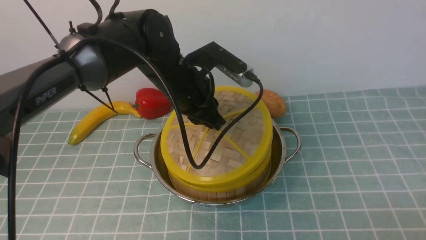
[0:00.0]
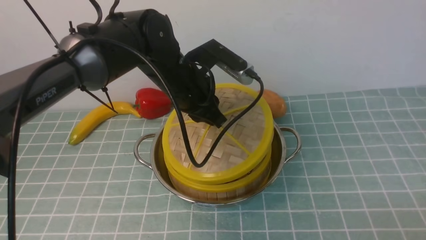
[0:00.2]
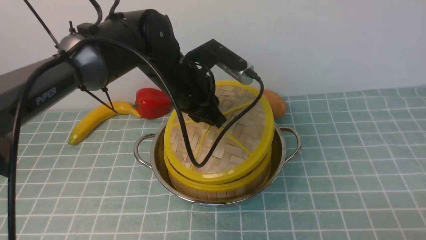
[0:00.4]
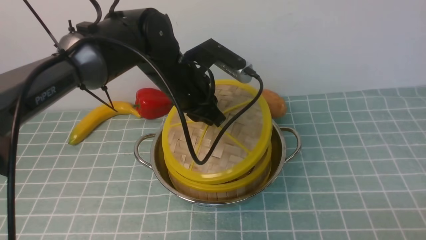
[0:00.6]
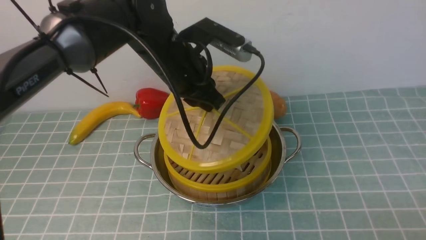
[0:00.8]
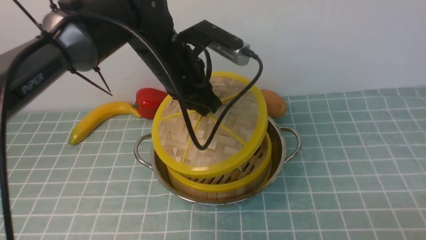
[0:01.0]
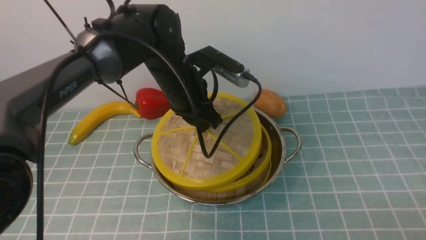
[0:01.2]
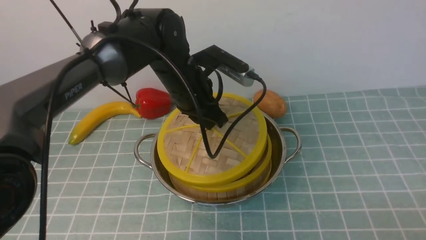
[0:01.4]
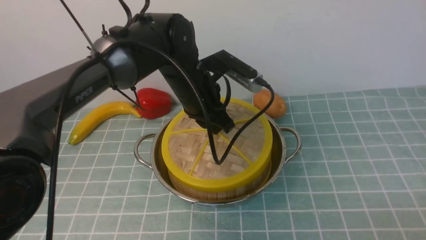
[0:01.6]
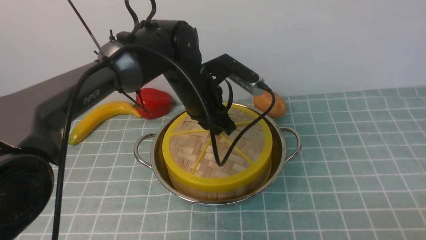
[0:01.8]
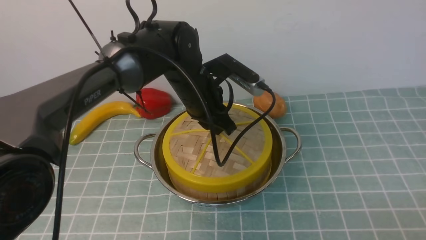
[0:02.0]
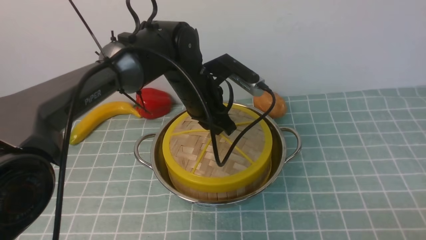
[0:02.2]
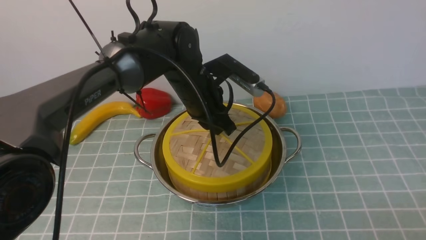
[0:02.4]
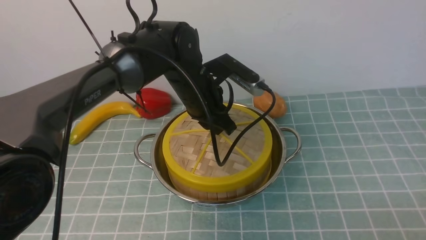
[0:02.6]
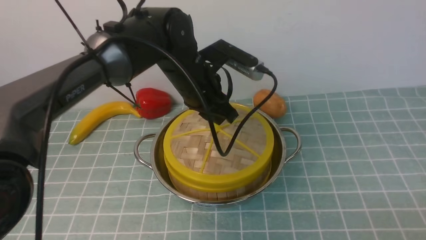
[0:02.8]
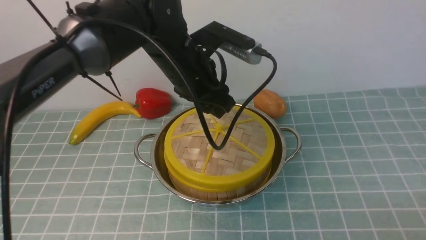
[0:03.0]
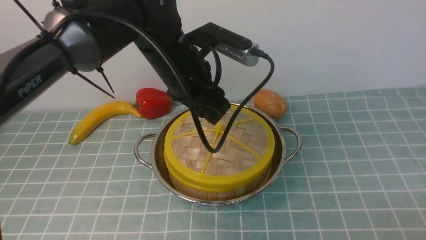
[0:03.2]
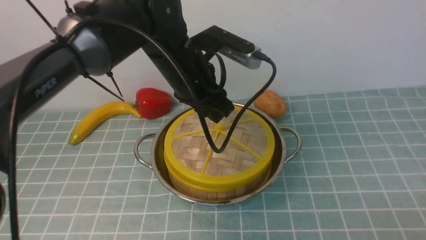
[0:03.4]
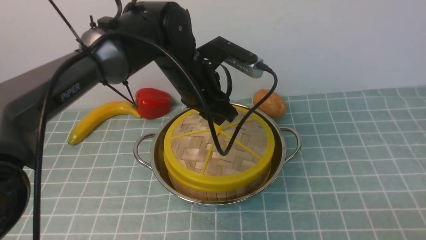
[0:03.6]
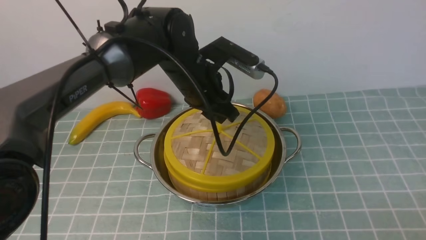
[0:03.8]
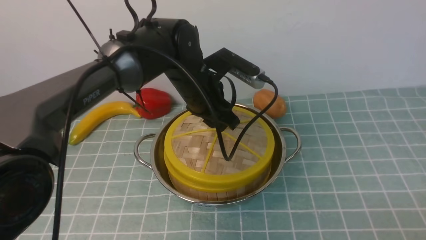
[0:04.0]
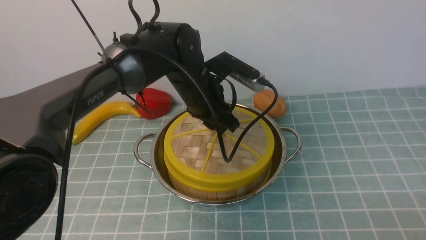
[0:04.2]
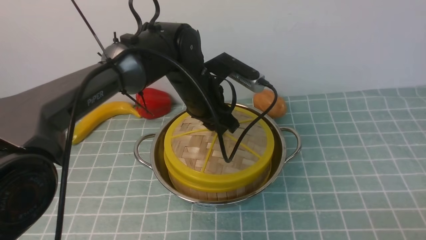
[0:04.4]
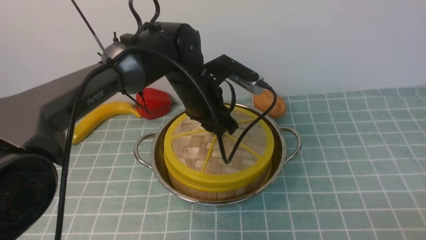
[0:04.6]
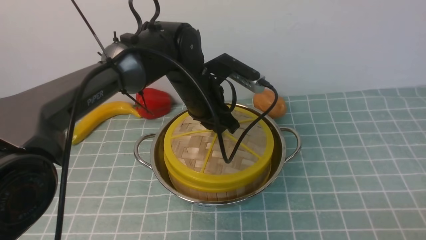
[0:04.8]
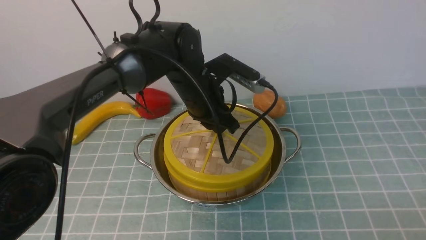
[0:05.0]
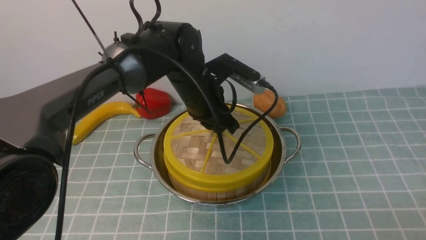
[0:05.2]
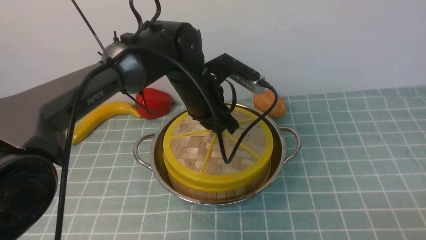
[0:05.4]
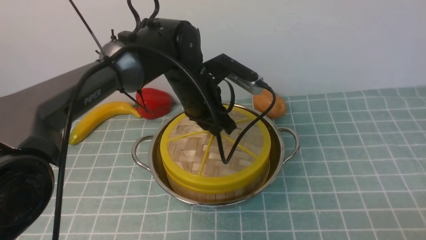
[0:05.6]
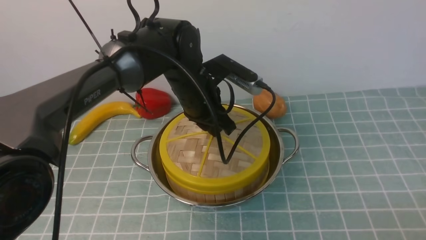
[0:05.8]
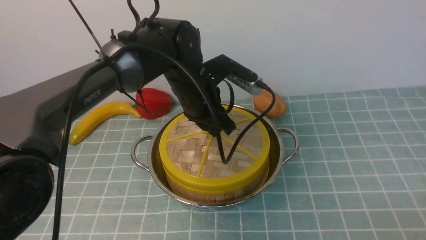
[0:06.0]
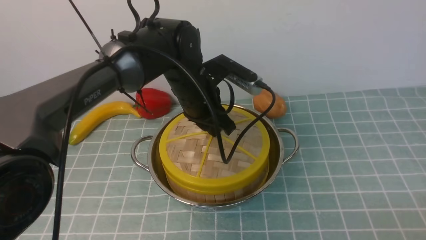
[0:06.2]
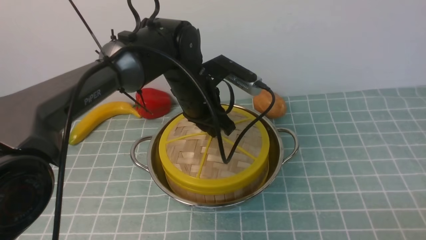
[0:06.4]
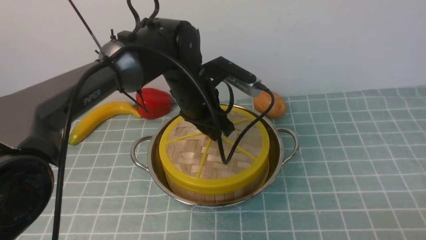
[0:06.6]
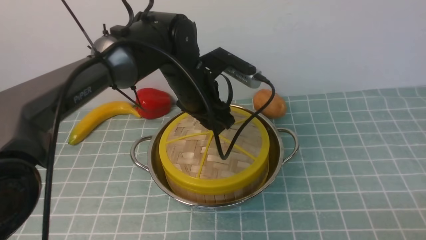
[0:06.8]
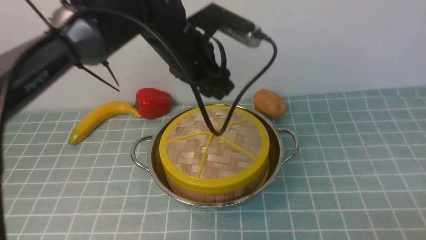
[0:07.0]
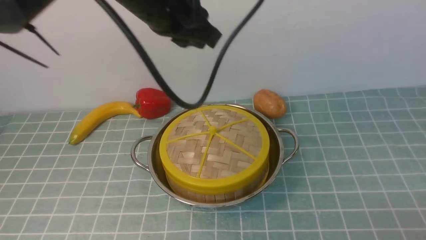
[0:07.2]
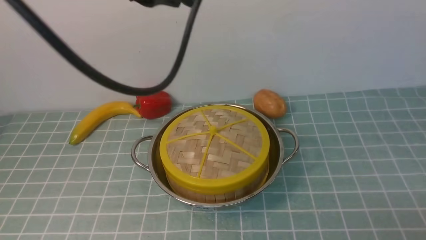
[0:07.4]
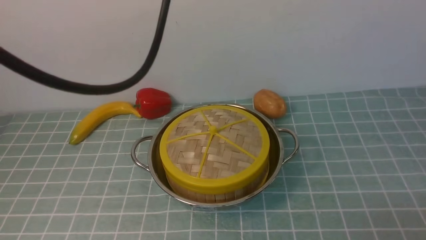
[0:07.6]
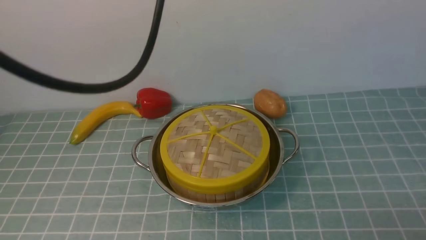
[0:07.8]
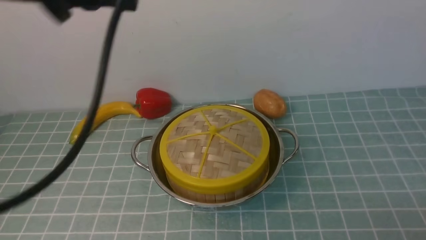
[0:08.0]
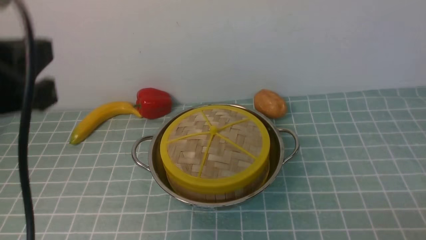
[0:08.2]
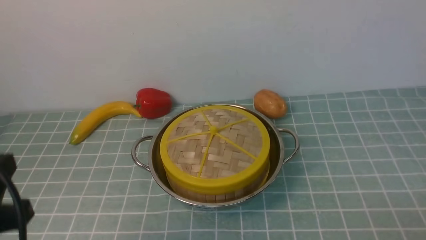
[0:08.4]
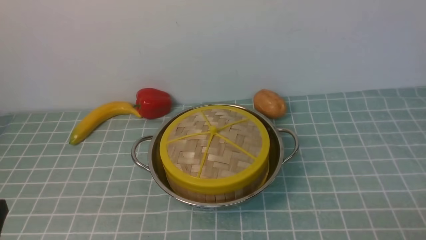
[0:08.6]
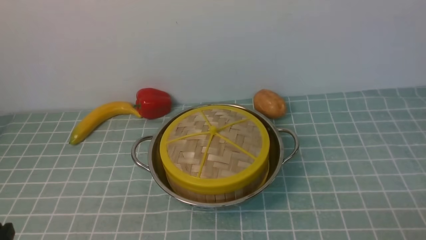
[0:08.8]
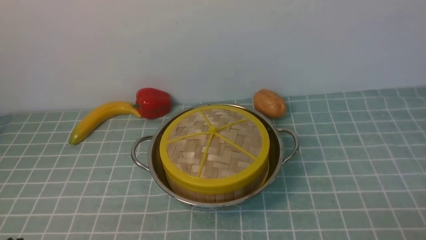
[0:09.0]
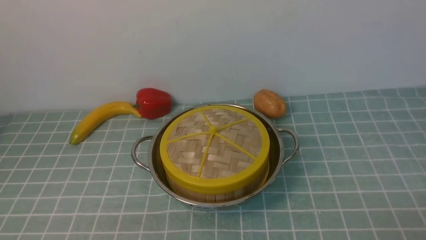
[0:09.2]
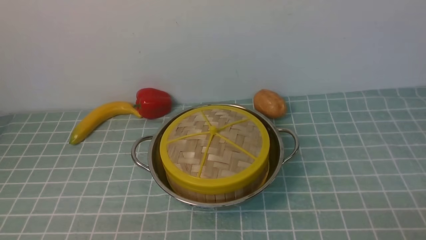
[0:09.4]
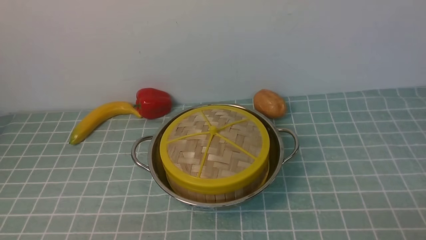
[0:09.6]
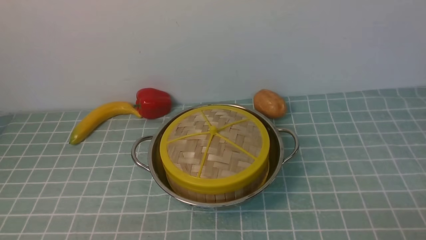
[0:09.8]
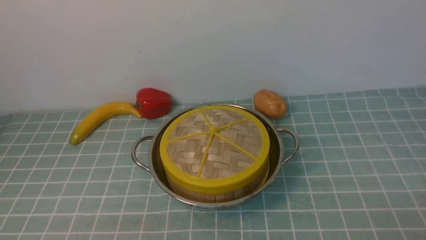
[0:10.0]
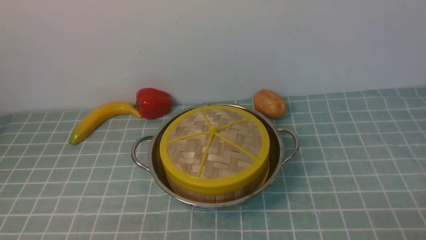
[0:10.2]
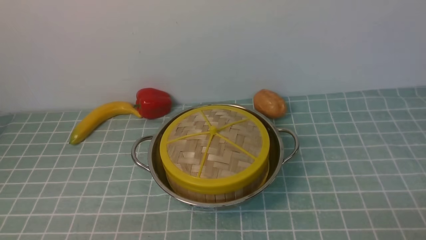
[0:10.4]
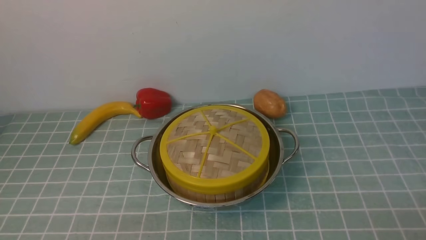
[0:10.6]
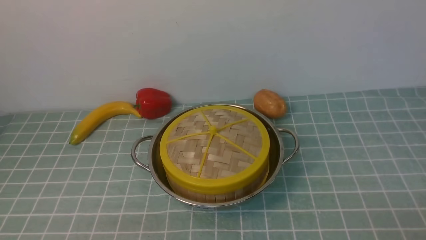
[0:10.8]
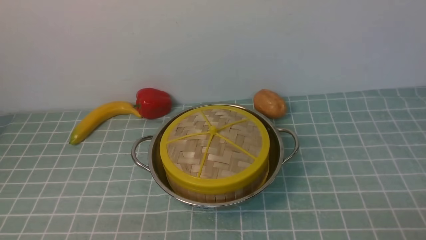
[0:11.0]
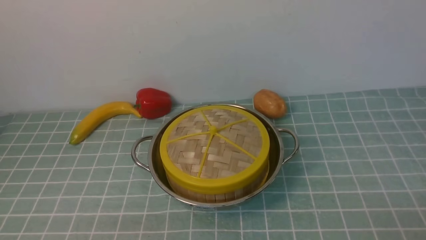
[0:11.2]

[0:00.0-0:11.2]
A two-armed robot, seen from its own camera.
Task of the whole recording: place the steamer in the pot on the blue tablecloth, and put the lid on the steamer.
Step, 0:00.0 to 0:07.2: use the left arm to place the steamer lid on the steamer.
0:00.0 to 0:01.6: The grippers make only small movements.
0:01.6 to 0:03.2: The left gripper travels upward by about 5 cm, and opens its fingers.
0:03.2 to 0:04.8: The left gripper goes some 5 cm downward, and closes up.
0:04.8 to 0:06.4: Neither gripper changes place.
0:06.4 to 0:08.0: The left gripper goes roughly 30 cm upward, backward and to the left, and closes.
0:08.0 to 0:09.6: The left gripper moves downward and backward, roughly 35 cm.
0:09.6 to 0:11.2: The two grippers keep their place.

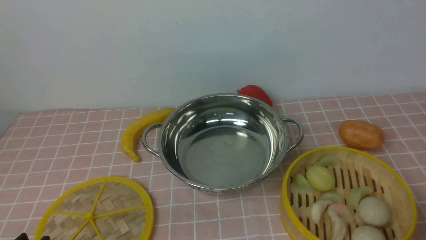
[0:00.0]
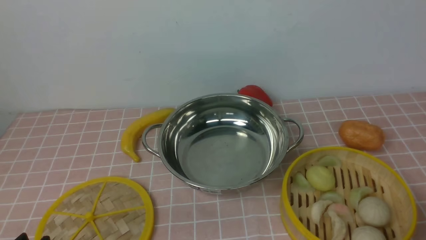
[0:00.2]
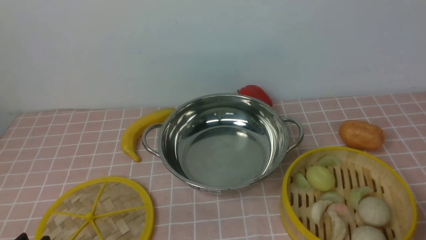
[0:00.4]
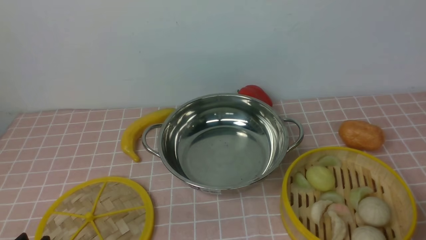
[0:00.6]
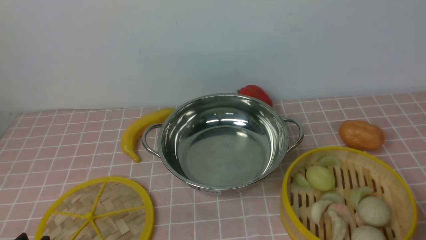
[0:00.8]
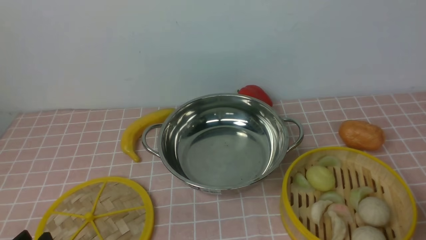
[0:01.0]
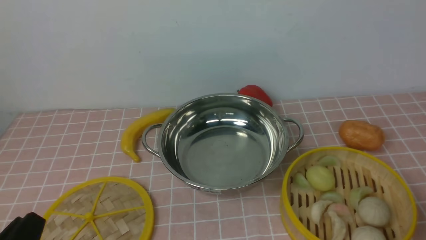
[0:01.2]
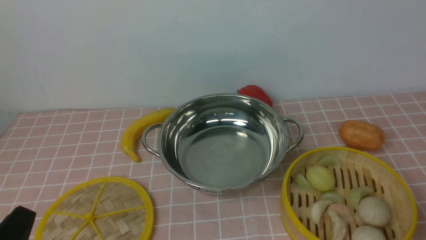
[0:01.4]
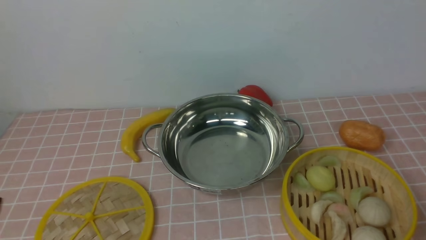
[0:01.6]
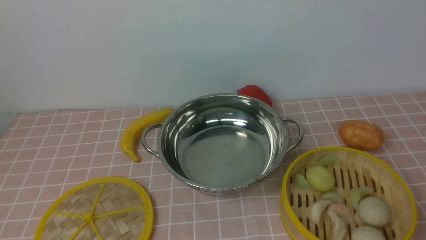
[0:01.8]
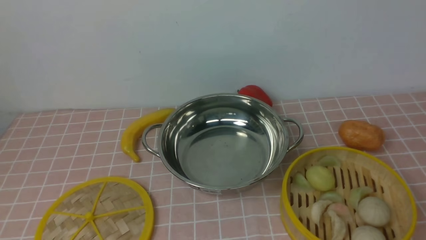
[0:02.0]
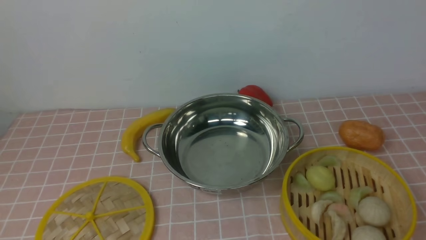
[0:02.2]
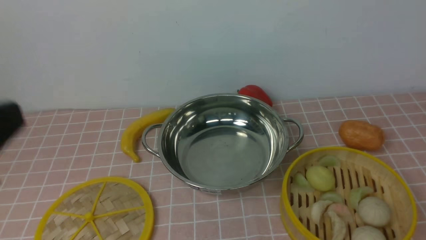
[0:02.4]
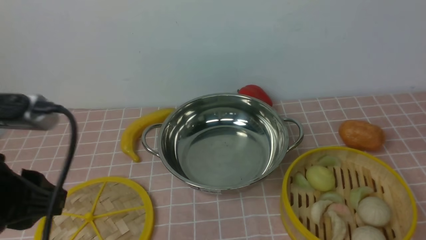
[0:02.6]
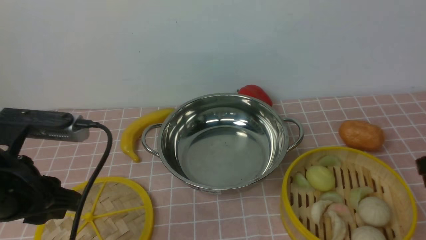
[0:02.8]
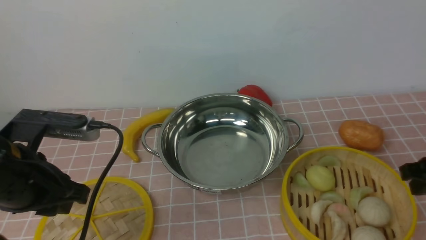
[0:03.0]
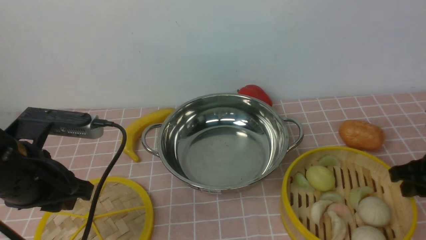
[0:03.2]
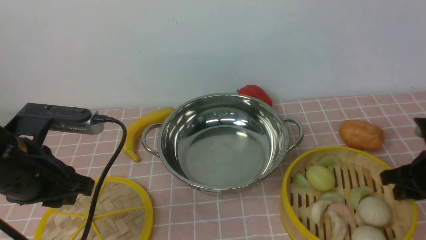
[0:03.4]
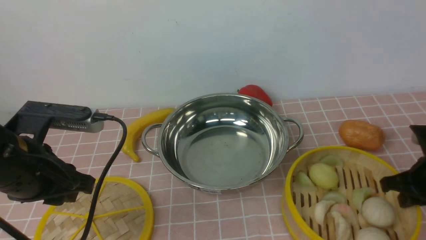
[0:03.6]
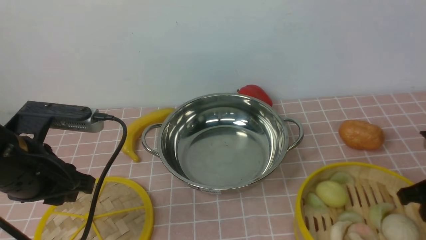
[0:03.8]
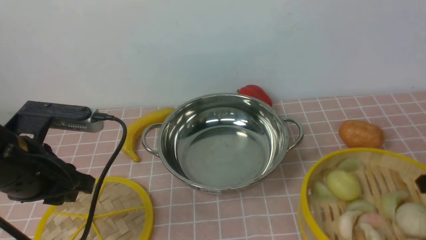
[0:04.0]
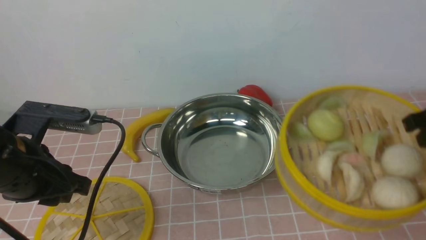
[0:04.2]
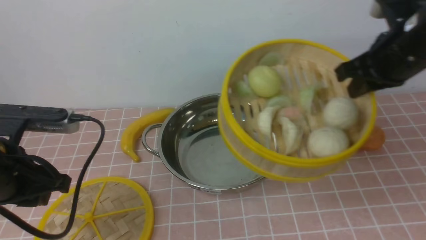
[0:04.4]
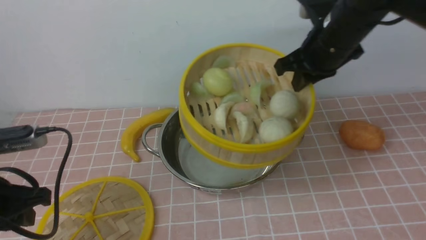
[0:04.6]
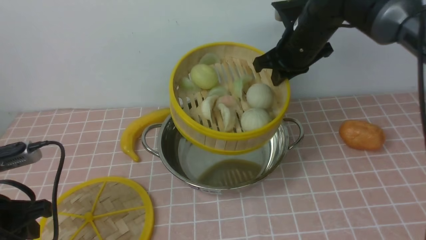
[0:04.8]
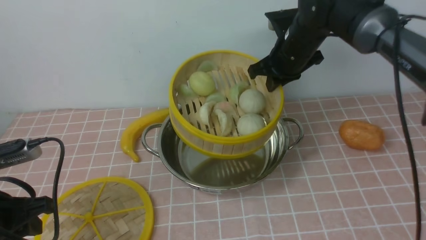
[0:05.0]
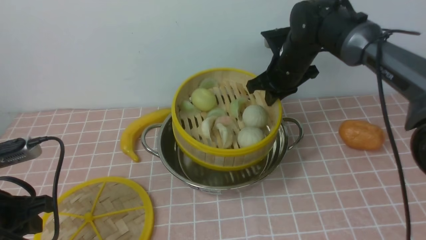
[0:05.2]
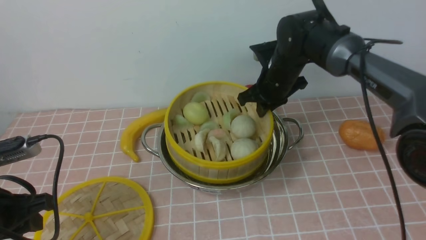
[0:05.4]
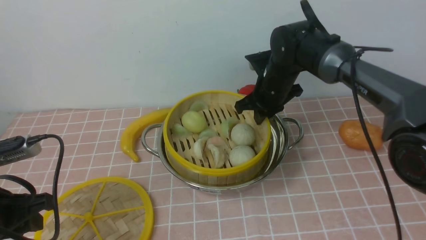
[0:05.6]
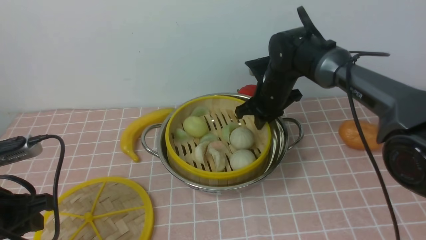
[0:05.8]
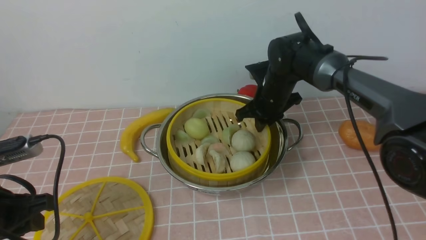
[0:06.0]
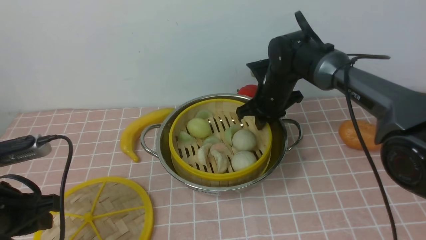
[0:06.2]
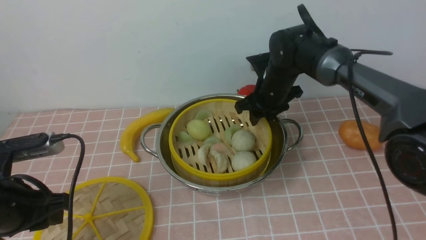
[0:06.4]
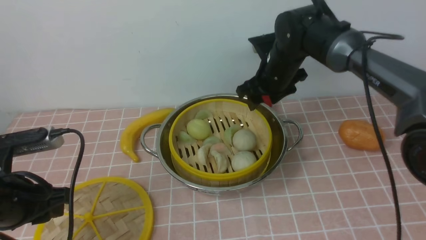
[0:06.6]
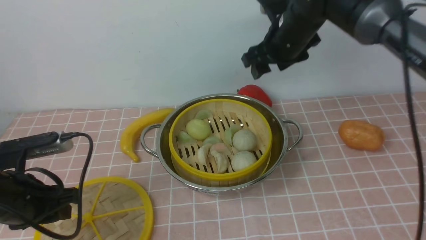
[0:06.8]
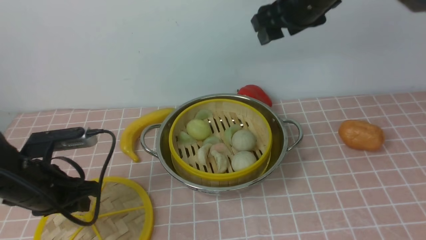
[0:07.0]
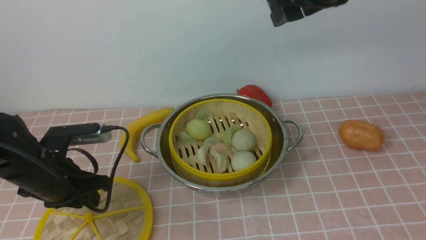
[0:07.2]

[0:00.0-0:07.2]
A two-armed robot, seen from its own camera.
Task of the whole recording: place the steamer in the pot on the pink tablecloth, and put the lid on the steamer.
Step, 0:00.0 to 0:03.8: use the right arm to lift the steamer closest to it.
Step, 0:04.0 to 0:06.4: use the right arm to put the steamer into the iron steamer pot in the middle.
0:01.4 to 0:02.8: The left gripper shifts approximately 15 cm forward and upward.
0:02.8 to 0:04.4: The right gripper is displaced forward, to the left and upward by approximately 15 cm, and closes. The left gripper moves some 5 cm.
0:04.4 to 0:05.8: The right gripper shifts roughly 25 cm downward, to the left and forward. Meanwhile the left gripper ends up approximately 5 cm from where it was.
0:05.8 to 0:07.2: The left gripper travels forward by roughly 5 cm. Meanwhile the right gripper heads upward, covering roughly 25 cm, and opens its fingers.
